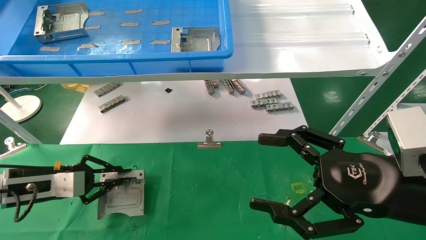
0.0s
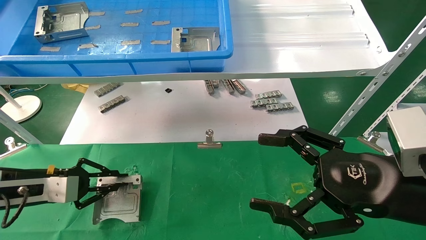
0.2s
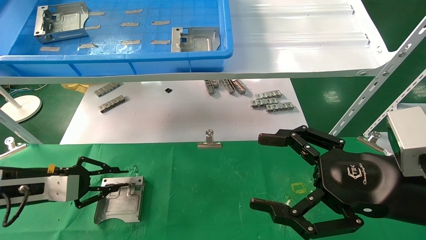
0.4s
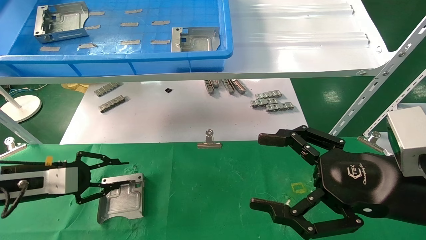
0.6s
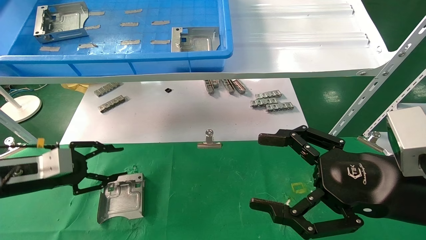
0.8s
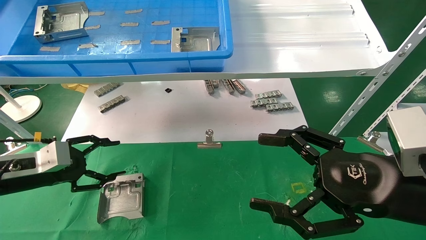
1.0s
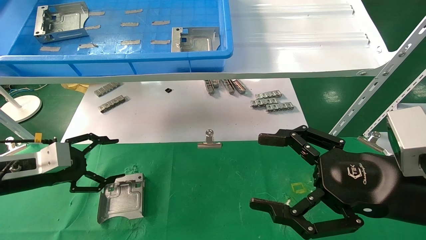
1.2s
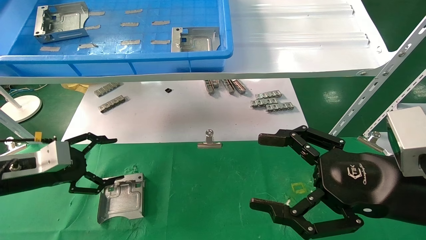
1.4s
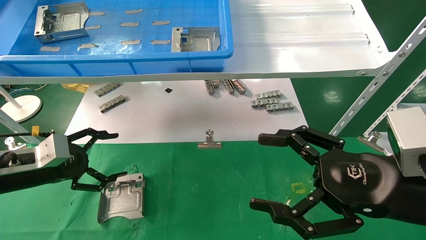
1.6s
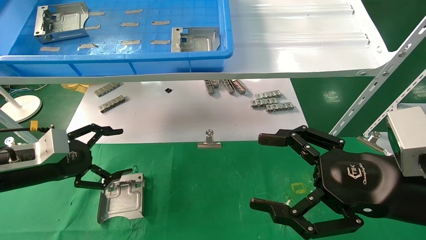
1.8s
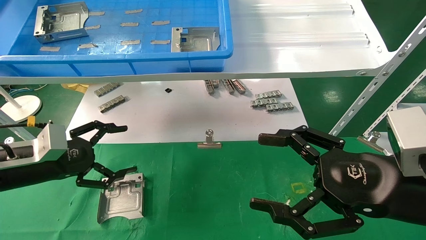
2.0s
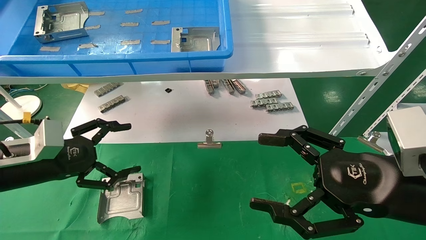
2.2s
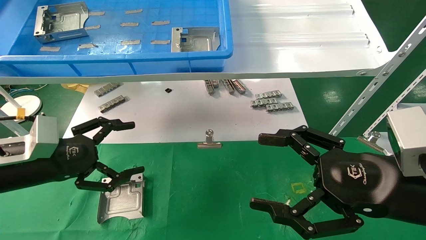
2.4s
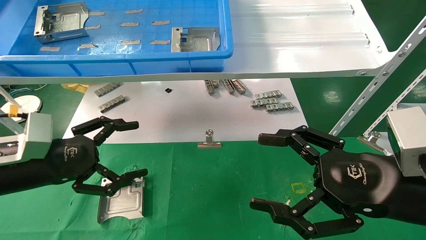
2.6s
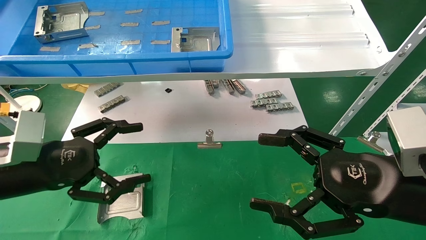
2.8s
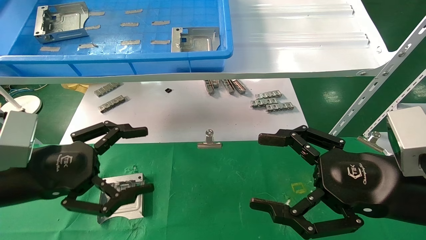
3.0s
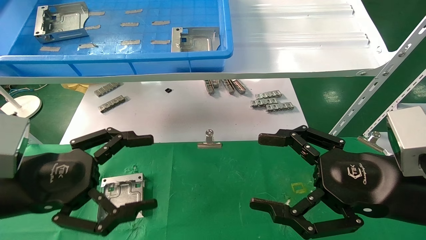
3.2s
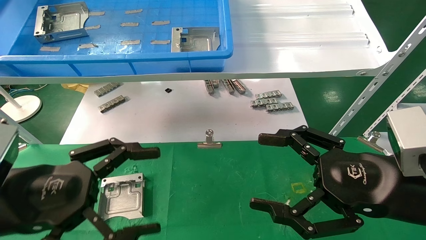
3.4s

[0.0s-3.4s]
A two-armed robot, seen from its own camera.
Task of the whole recording: use the mechanical arm to pick up the parts and place them on the table.
0.0s to 1.6s: The left gripper opens its fingers.
1.6s to 3.4s: The left gripper shifts roughly 15 cm backward and to the right.
